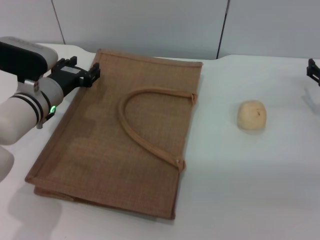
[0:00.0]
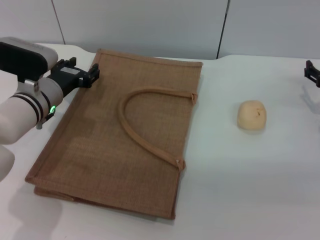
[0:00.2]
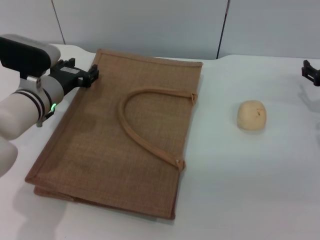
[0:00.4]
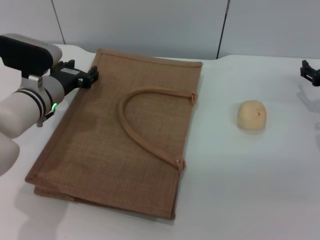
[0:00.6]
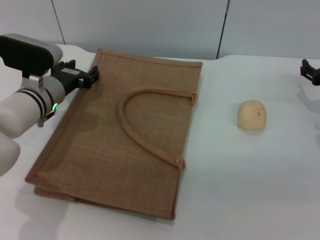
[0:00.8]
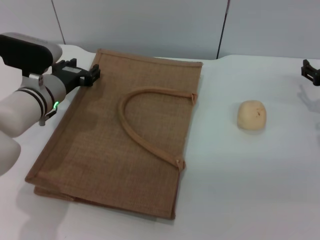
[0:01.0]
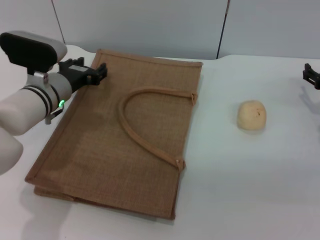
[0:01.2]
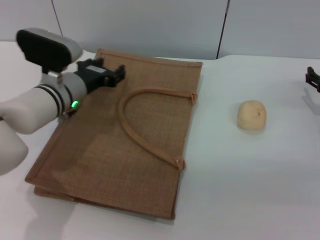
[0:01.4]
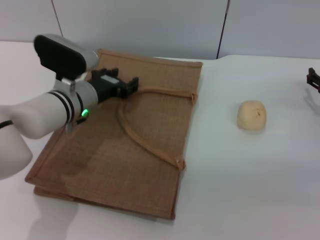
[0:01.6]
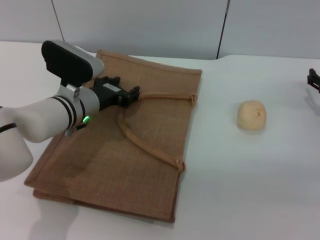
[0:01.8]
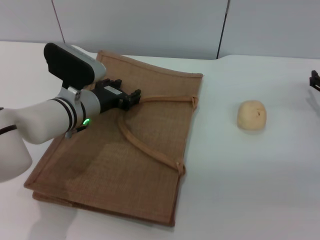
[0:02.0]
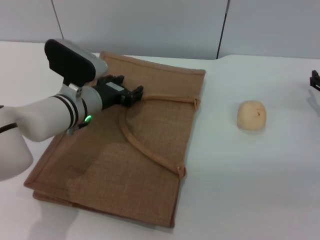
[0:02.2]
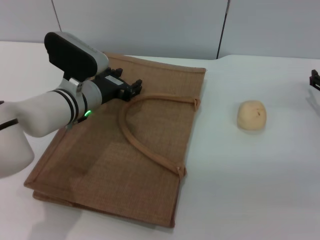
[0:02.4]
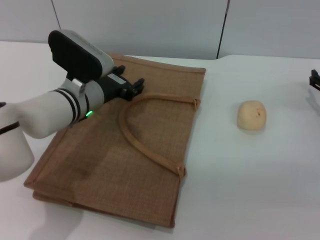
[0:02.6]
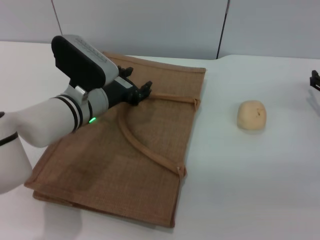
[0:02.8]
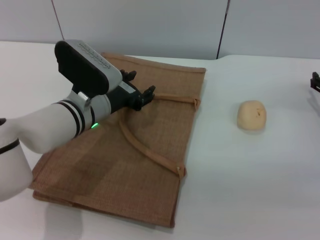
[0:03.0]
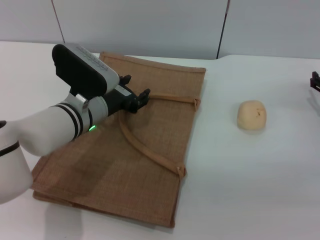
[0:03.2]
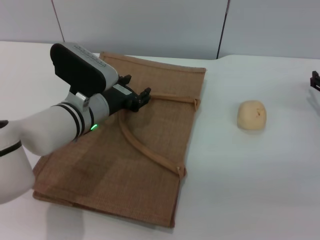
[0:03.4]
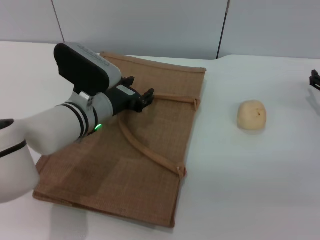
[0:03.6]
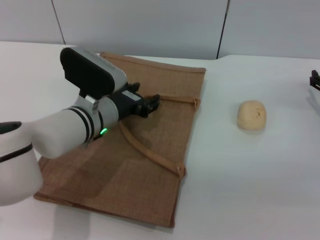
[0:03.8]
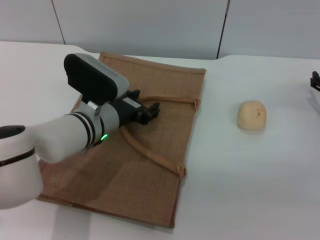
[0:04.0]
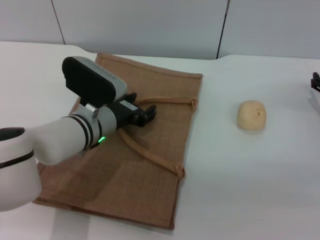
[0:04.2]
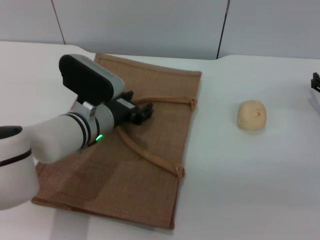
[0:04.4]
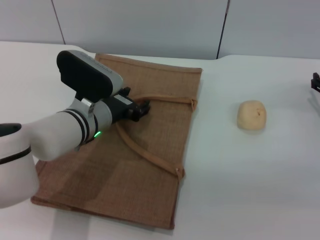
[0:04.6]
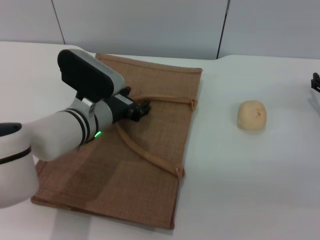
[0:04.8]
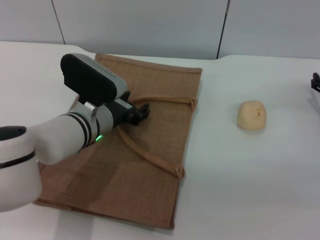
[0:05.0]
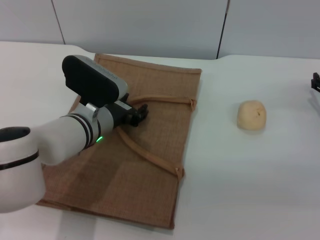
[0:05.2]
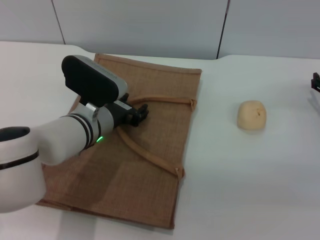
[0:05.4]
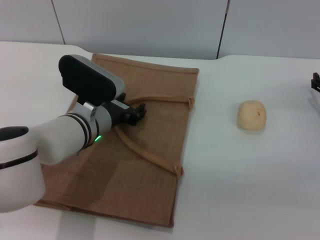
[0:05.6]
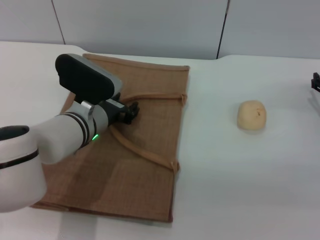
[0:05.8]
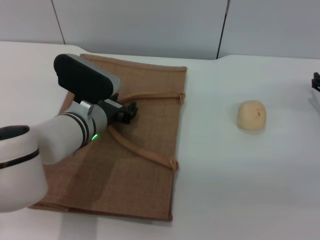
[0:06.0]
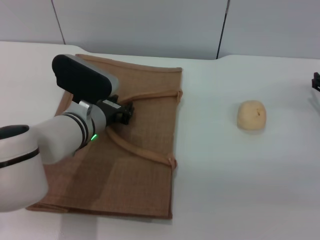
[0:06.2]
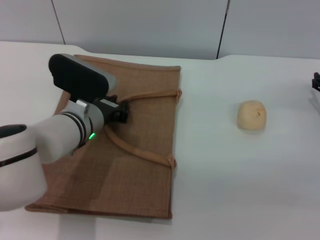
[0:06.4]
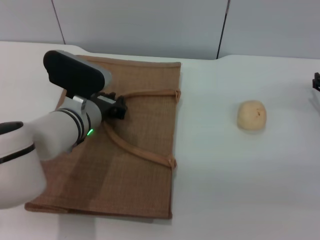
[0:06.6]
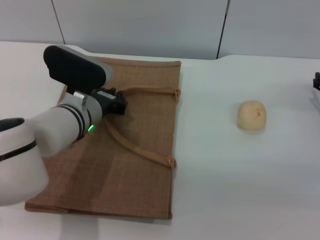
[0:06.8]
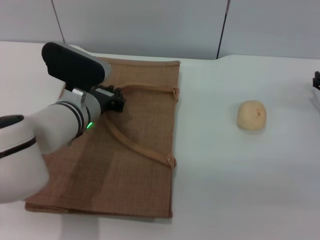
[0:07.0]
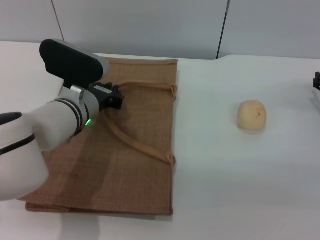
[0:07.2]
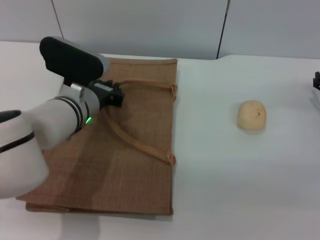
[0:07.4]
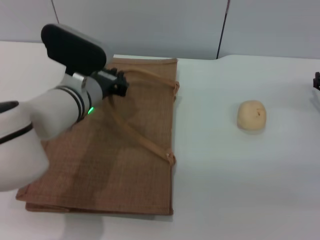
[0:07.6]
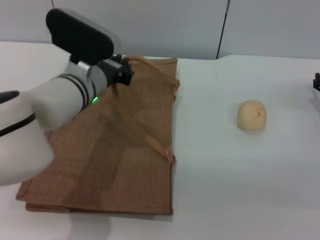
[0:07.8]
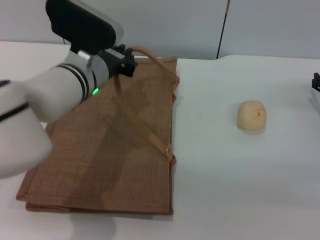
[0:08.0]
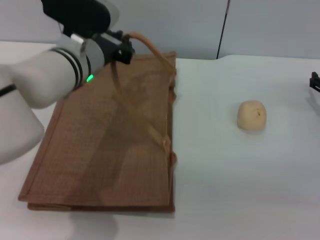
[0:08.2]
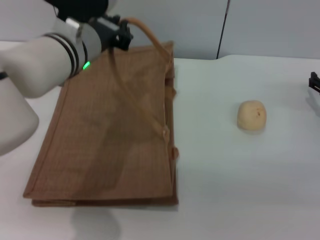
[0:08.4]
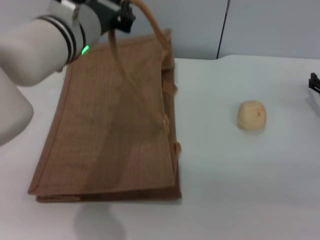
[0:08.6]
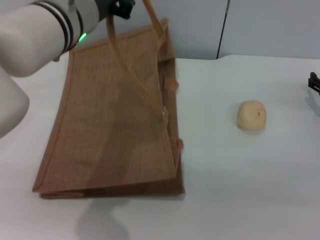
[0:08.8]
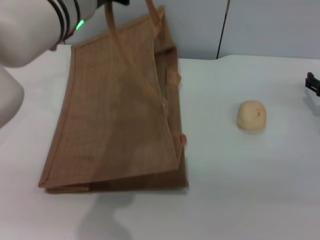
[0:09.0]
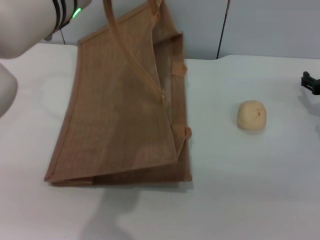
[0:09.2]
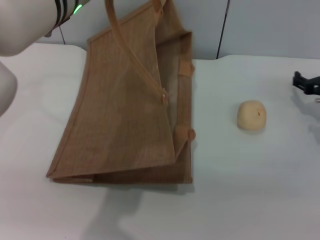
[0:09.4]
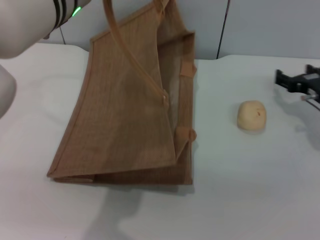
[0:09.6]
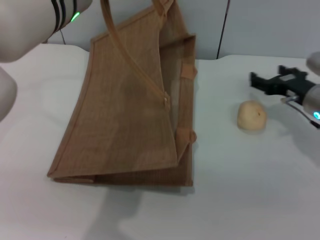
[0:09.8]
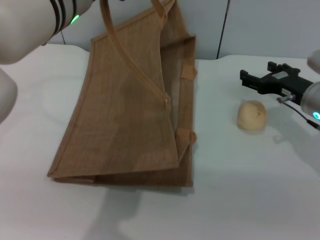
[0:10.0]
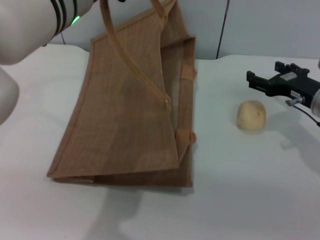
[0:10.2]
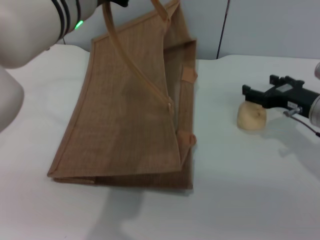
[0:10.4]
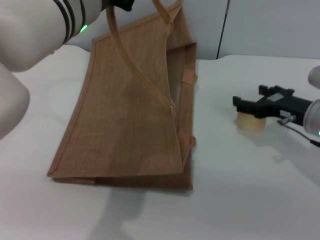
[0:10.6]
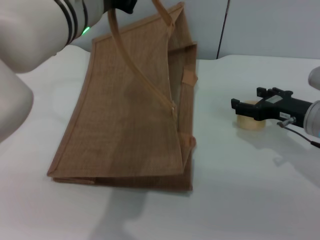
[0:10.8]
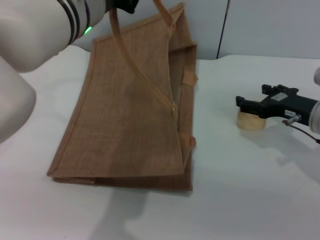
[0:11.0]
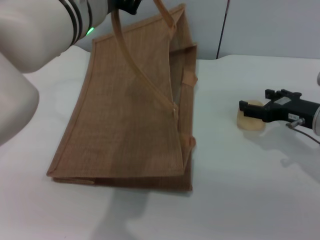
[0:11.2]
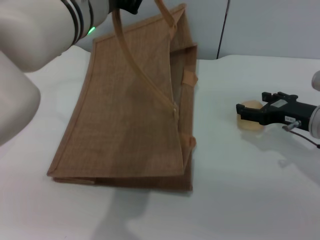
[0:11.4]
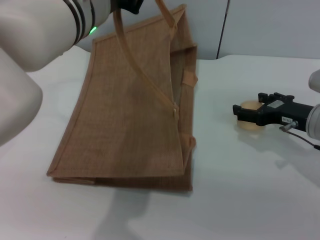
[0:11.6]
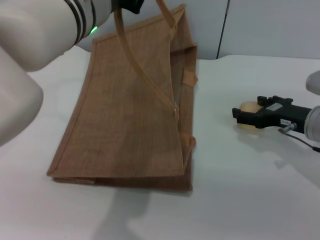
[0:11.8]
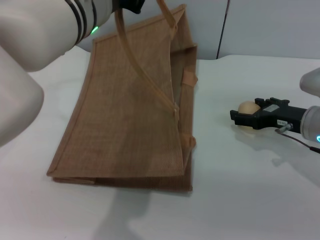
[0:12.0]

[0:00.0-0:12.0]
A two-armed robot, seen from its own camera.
Task of the whole recording: pick up the egg yolk pastry from the table and place it in the brown handbag.
Step, 0:00.0 to 0:09.2: Lift the woven bag with the left gripper to open it.
0:00.0 to 0:01.6: The left gripper moves to the right, some 5 cm.
0:01.6 to 0:03.0: The grippers stay close to where they were, moving slightly.
0:03.0 to 0:06.0: The grippers make only small movements.
0:06.0 to 0:07.6: The left gripper closes.
0:07.6 to 0:09.0: The left gripper heads upward, covering some 15 cm.
0:09.0 to 0:10.4: The right gripper goes approximately 5 cm to the left.
0:10.4 to 0:12.0: The grippers make only small movements.

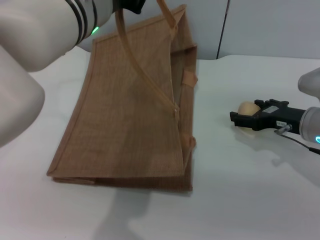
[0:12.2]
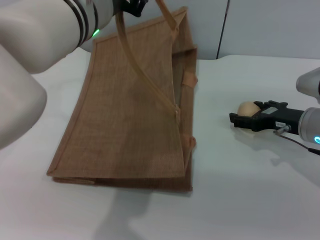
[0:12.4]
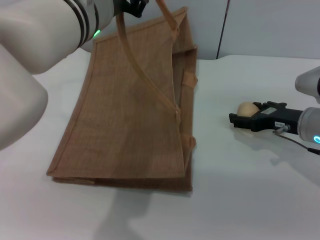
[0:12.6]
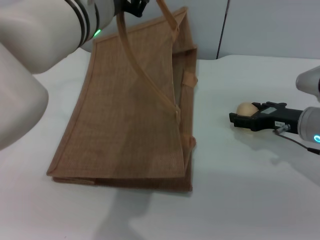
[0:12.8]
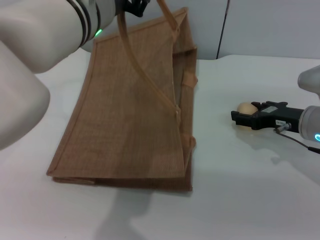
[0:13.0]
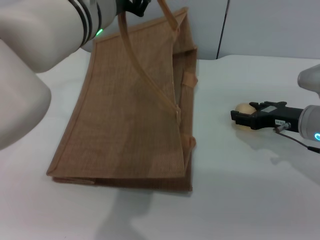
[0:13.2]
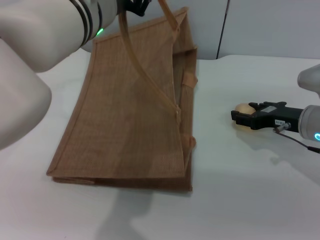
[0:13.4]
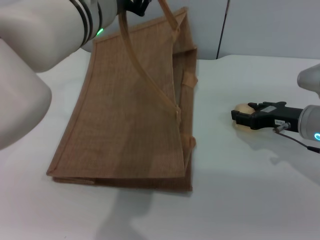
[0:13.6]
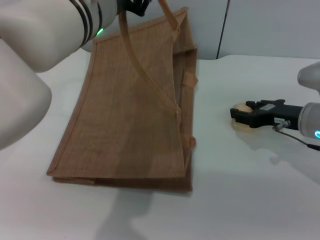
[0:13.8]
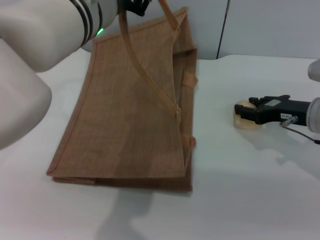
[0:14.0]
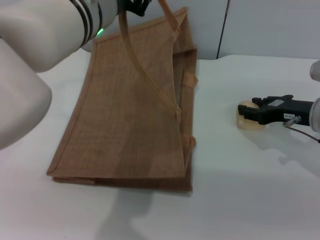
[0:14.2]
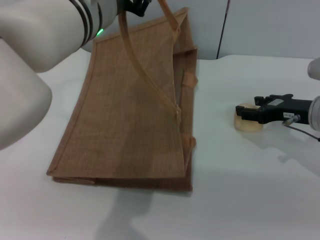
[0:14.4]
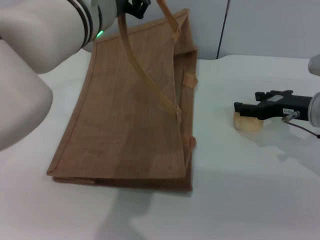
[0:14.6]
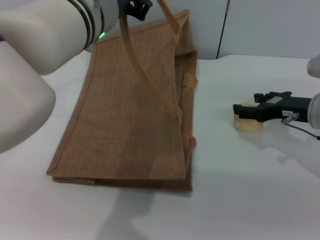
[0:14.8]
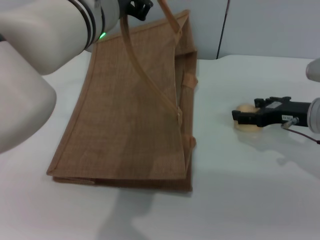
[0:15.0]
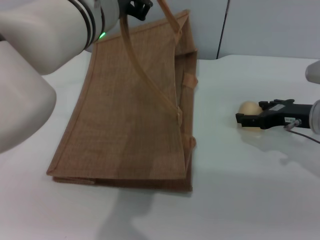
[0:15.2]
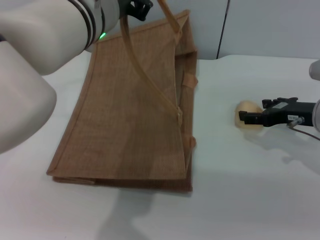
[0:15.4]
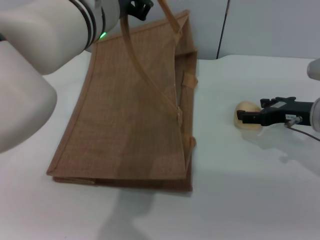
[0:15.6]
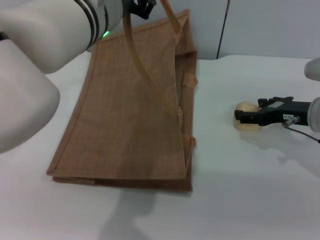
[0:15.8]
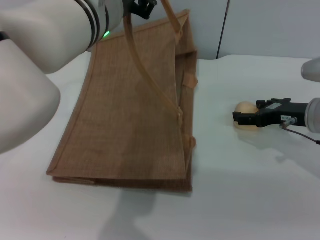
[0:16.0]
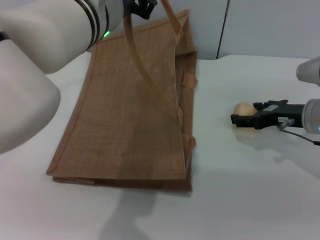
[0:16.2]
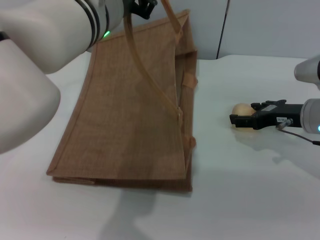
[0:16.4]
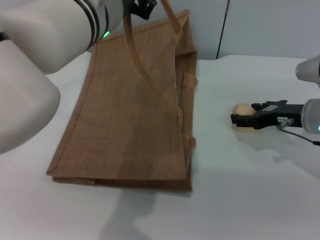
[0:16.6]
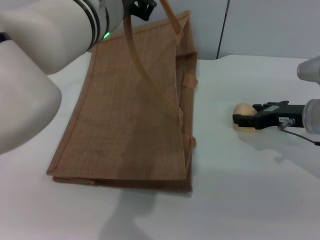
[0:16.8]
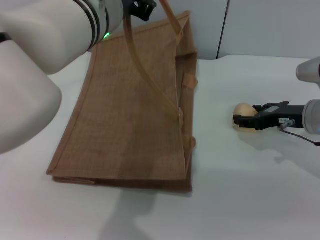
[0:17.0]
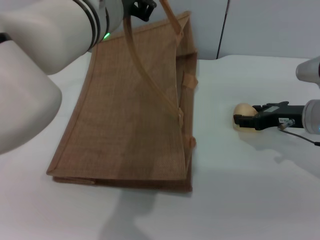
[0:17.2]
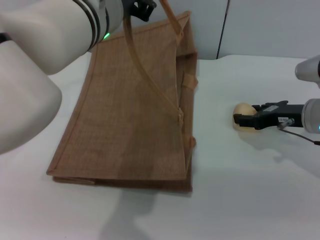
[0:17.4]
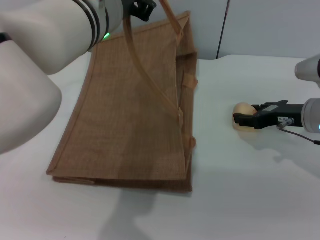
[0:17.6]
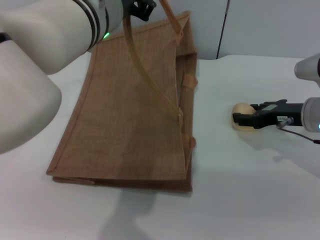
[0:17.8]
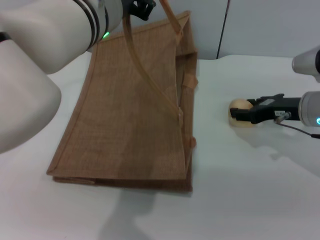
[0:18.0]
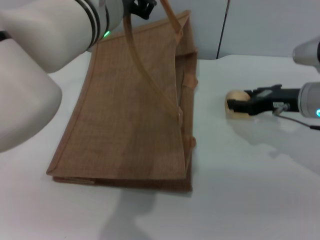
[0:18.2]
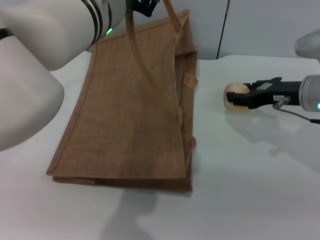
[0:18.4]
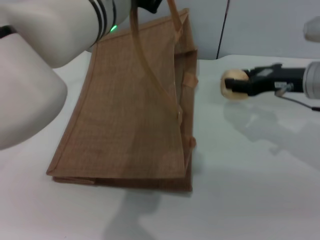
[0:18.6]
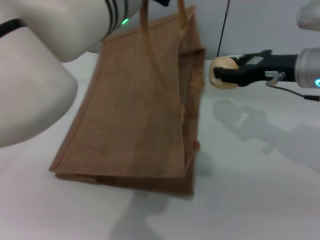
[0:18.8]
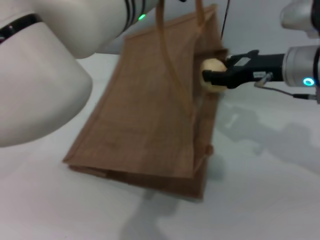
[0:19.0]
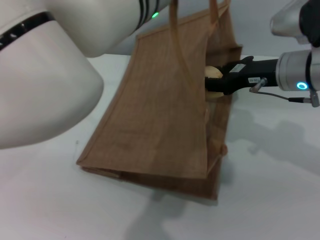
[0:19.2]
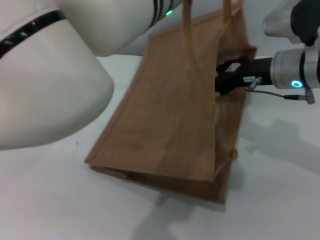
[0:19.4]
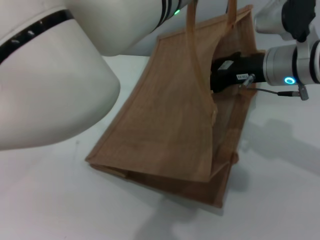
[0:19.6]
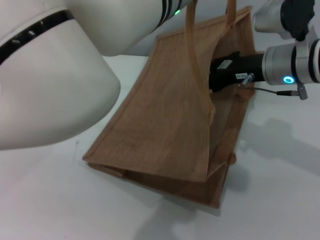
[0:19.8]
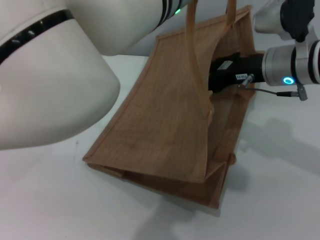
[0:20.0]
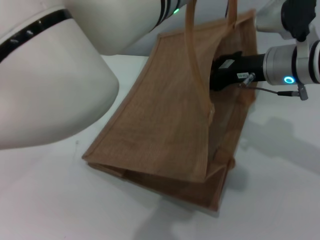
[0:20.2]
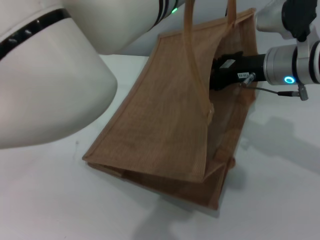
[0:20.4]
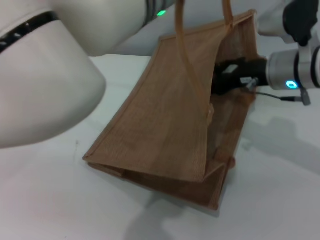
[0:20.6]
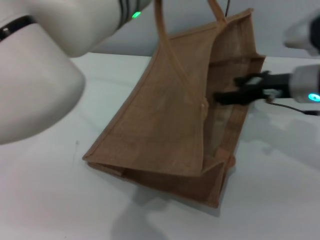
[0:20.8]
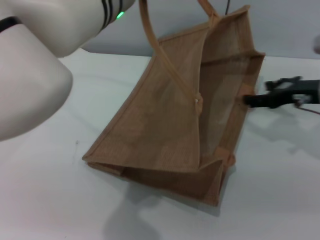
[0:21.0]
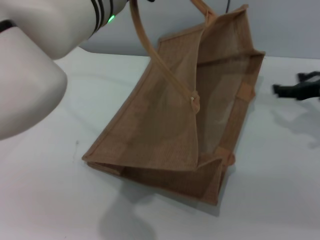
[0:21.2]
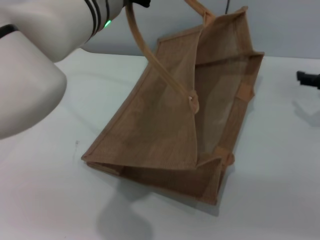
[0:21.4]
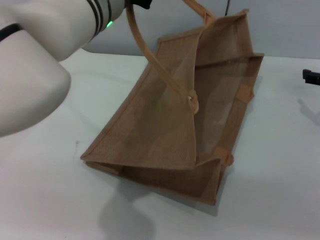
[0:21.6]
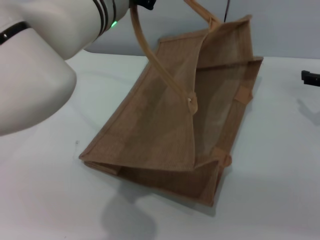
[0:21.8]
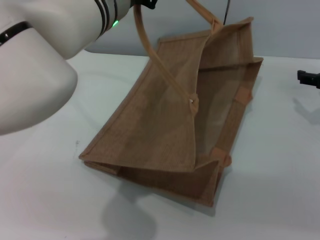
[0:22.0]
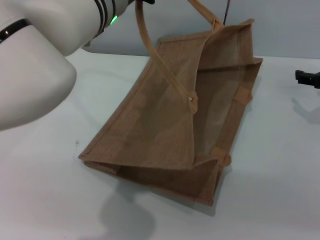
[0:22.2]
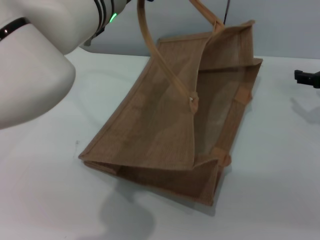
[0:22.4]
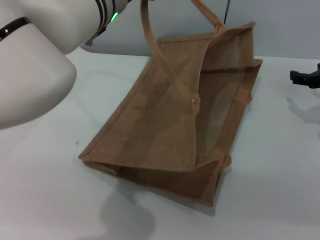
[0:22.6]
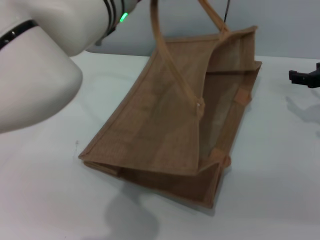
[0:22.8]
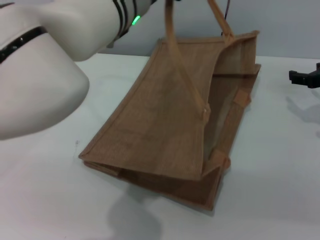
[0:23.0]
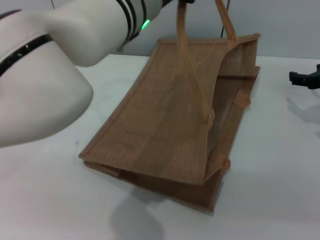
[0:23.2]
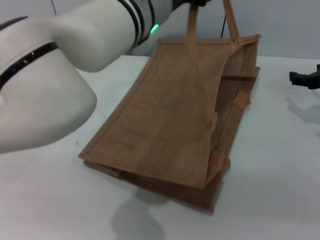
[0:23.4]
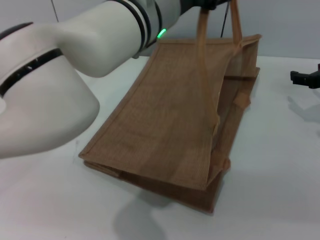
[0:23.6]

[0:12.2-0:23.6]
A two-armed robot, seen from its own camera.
Task of the whole recording: pick up the egg yolk pastry from the table and place it in the brown handbag.
Step, 0:12.2 to 0:18.6: Pick up the egg yolk pastry with the right gripper.
Step, 0:18.8 to 0:21.0: Place the egg yolk pastry into the woven bag with the right gripper.
0:12.2 to 0:13.6: The right gripper closes its fingers.
0:13.6 to 0:15.0: The right gripper opens its fingers.
0:15.0 to 0:16.4: Neither gripper changes place.
0:16.4 to 0:17.8: The right gripper closes its fingers.
0:17.8 to 0:19.4: The right gripper heads upward and to the left, covering roughly 10 cm, while the left gripper goes about 5 cm to the right.
0:19.4 to 0:20.8: The right gripper opens.
0:20.8 to 0:22.2: The left gripper changes place by some 5 cm. The right gripper heads to the right, covering approximately 10 cm.
0:22.2 to 0:23.6: The left gripper is displaced to the right by roughly 5 cm, and opens up.
